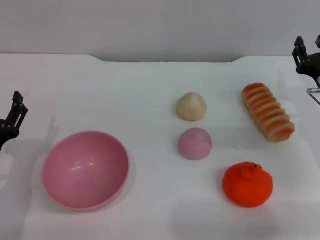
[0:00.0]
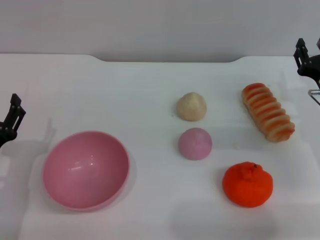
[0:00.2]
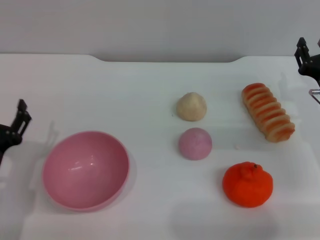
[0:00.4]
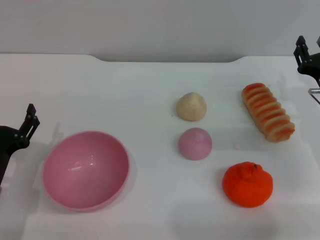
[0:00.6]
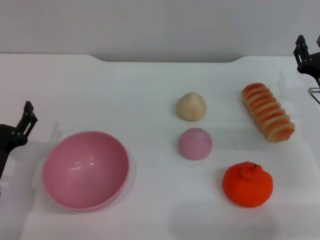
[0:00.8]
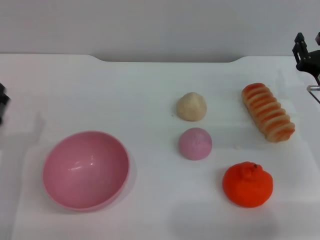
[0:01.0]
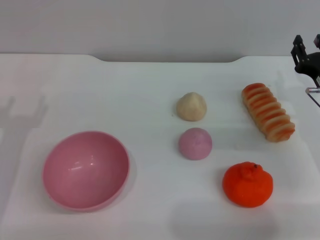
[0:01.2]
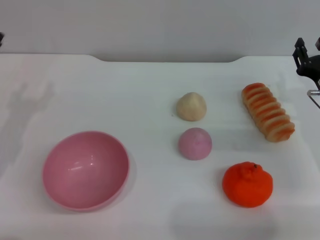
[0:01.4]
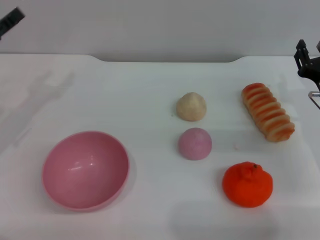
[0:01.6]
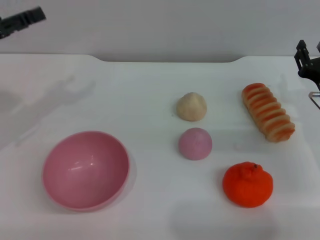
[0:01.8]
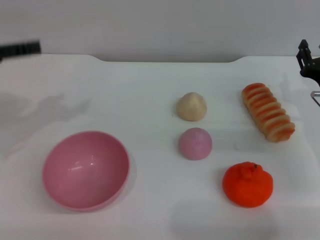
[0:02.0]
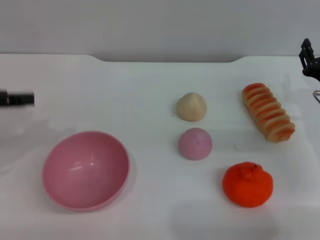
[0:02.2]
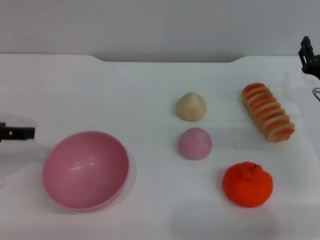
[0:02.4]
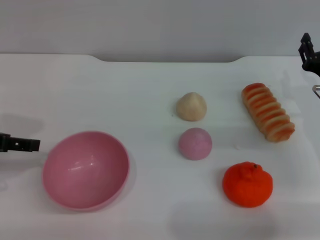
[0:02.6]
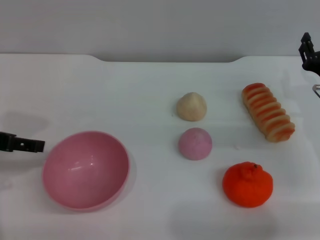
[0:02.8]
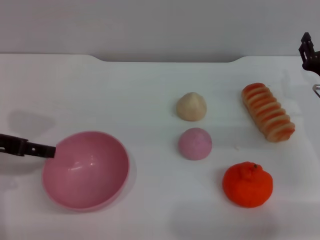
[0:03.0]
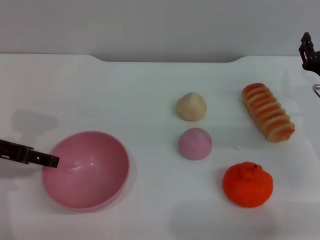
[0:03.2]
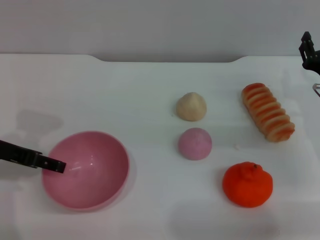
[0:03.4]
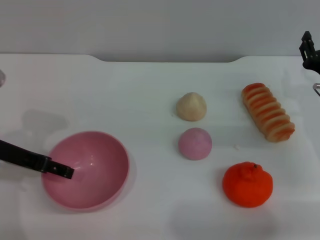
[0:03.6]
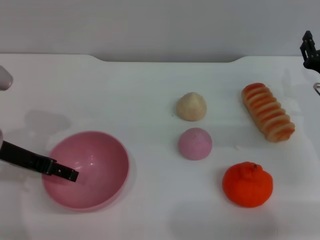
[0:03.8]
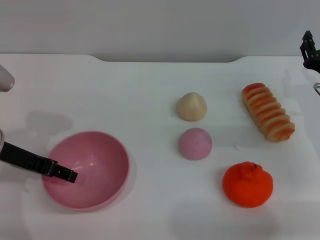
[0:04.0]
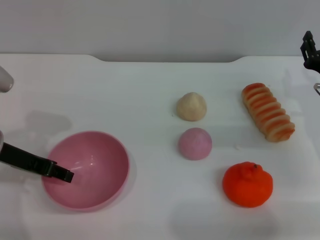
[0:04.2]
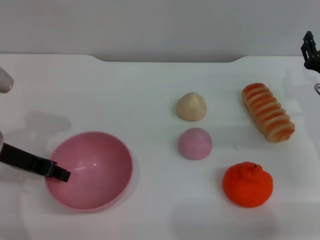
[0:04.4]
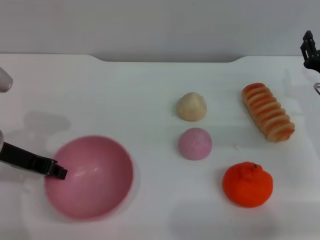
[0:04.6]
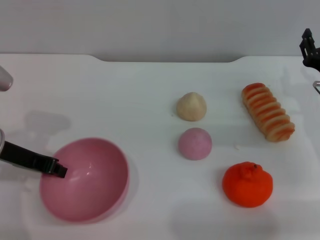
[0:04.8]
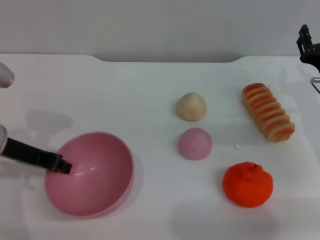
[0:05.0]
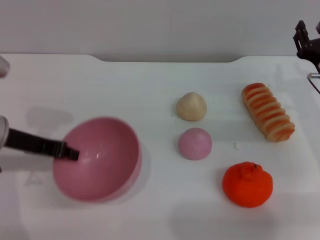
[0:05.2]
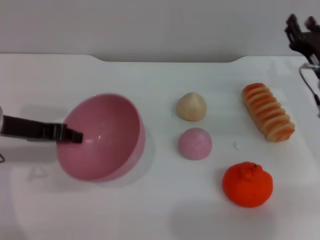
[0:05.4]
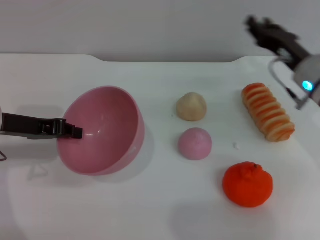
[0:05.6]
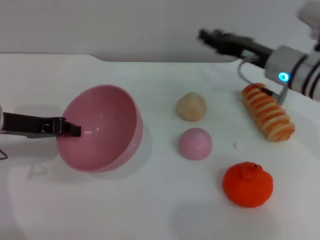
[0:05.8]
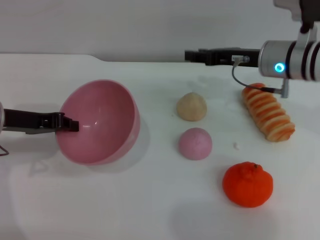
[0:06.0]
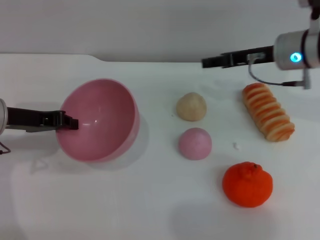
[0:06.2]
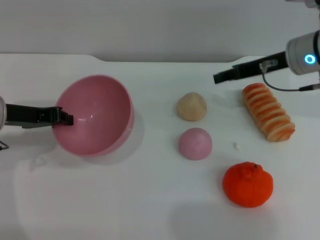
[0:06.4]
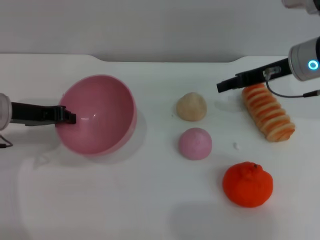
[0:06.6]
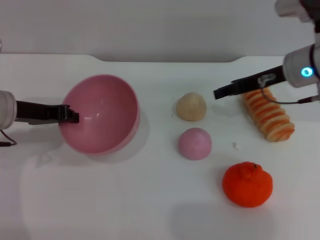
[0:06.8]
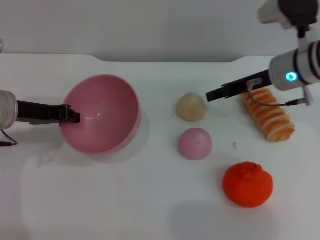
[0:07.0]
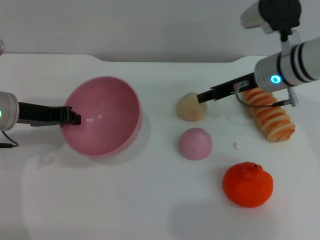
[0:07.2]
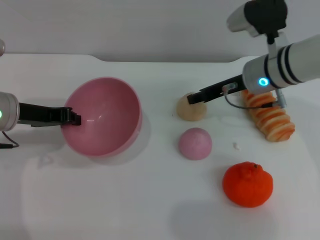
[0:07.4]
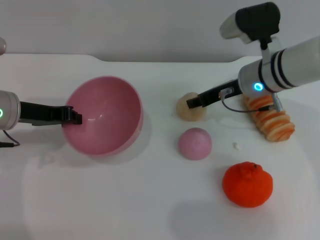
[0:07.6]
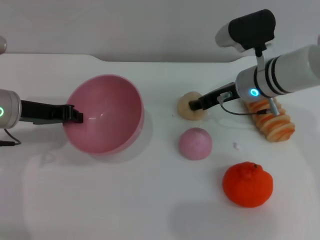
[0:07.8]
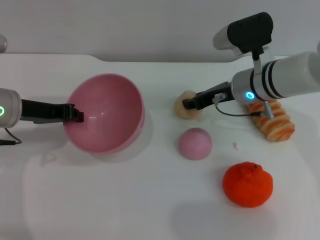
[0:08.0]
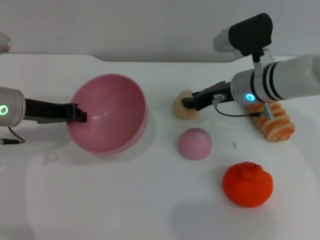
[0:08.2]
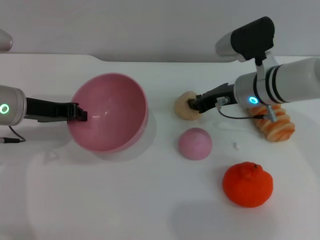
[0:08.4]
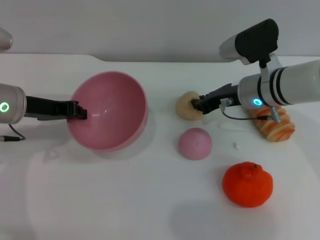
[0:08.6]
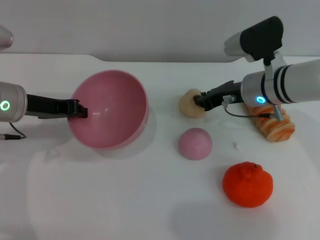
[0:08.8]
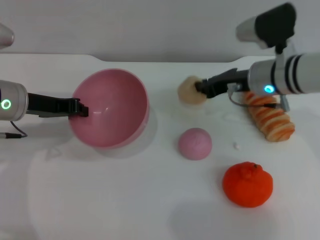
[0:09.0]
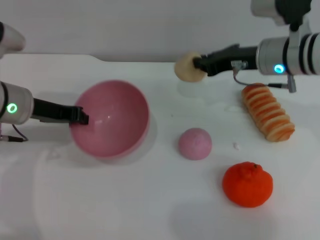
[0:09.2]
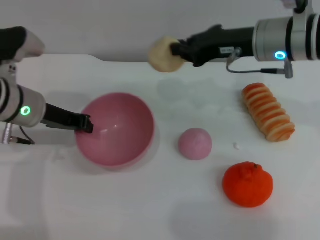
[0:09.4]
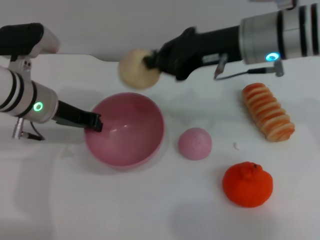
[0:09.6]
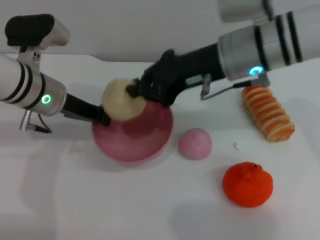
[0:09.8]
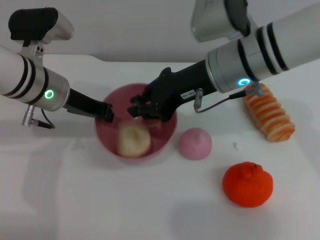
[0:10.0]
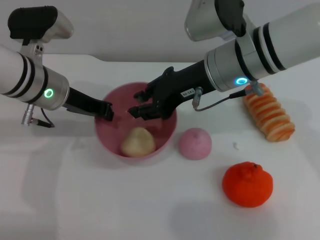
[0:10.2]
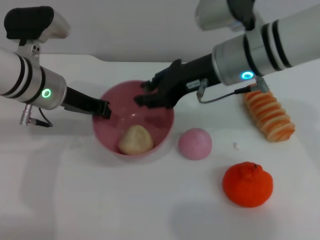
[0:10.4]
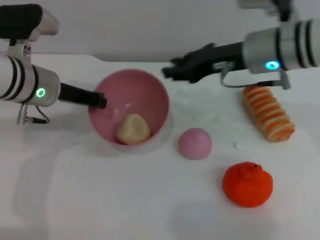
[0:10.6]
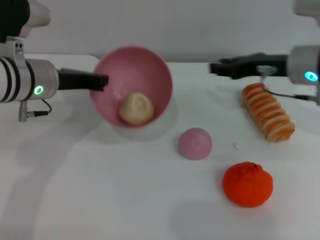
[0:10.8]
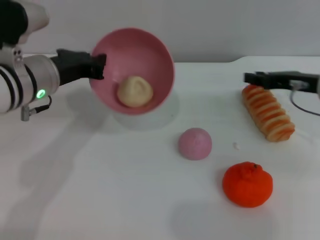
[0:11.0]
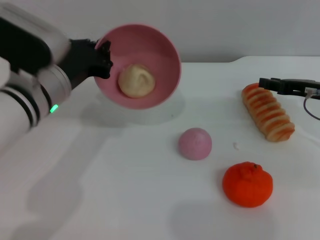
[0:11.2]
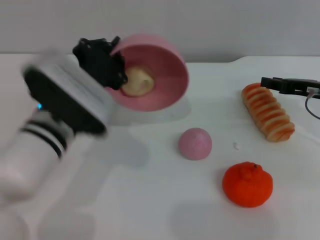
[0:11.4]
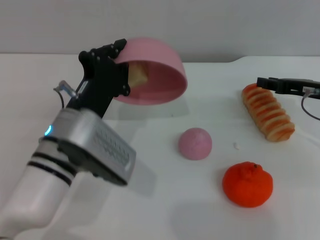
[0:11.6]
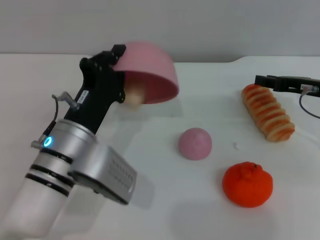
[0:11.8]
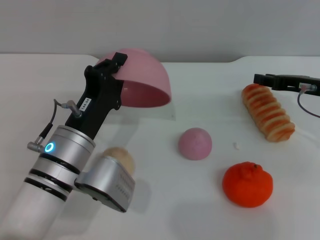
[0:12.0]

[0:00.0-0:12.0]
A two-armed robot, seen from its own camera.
Task of the whole recording: put the egg yolk pastry into the pink bowl and pour it out repeatedly.
Step, 0:00.0 to 0:05.4: Pick up the bowl with the left gripper.
Step, 0:05.6 to 0:09.0: Pick up the egg yolk pastry with the right gripper.
Step, 0:09.4 to 0:10.8: Place the egg yolk pastry into the bowl.
0:00.0 to 0:01.6: The left gripper is displaced forward, upward and to the left by roughly 20 cm.
0:01.6 to 0:03.0: The left gripper heads backward, covering approximately 5 cm.
0:03.0 to 0:04.4: The left gripper shifts by roughly 5 cm, and closes.
0:04.4 to 0:06.0: The right gripper shifts approximately 15 cm to the left, forward and upward; the left gripper closes its fingers.
0:07.6 to 0:09.0: The right gripper closes up.
0:09.0 to 0:10.4: The left gripper travels to the right by some 5 cm; the right gripper goes about 10 cm upward and to the left, and opens its fingers.
0:10.4 to 0:12.0: The right gripper shifts some 20 cm to the right and downward. Meanwhile the left gripper goes roughly 15 cm backward, downward and to the right.

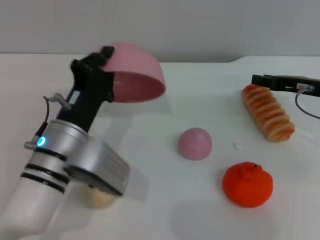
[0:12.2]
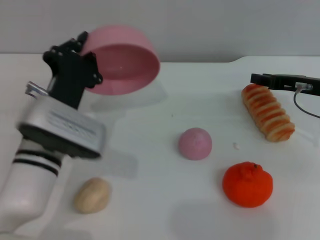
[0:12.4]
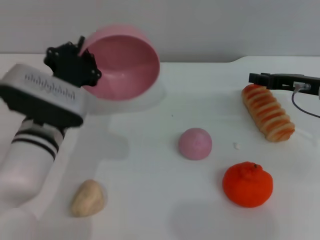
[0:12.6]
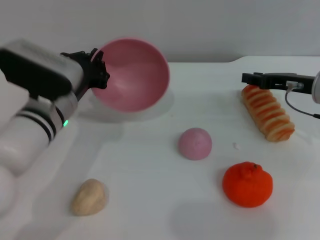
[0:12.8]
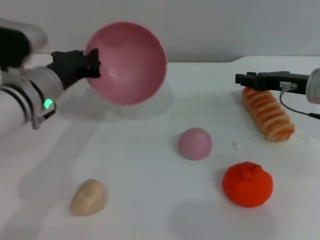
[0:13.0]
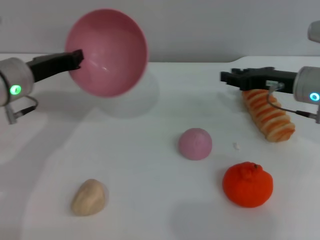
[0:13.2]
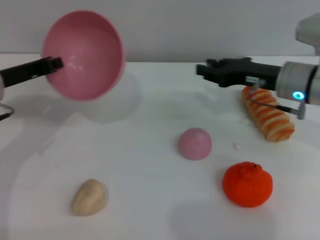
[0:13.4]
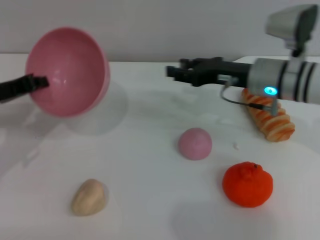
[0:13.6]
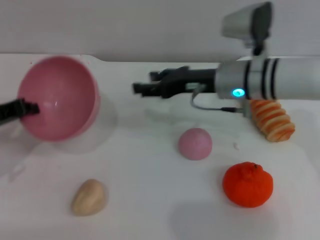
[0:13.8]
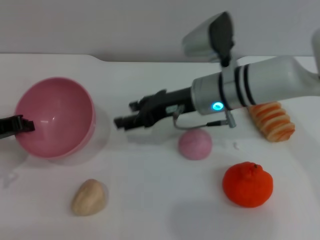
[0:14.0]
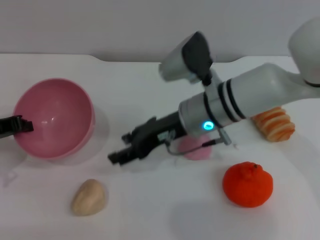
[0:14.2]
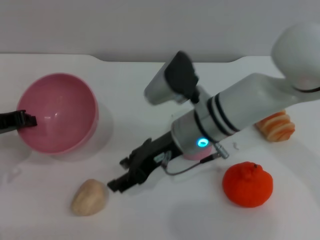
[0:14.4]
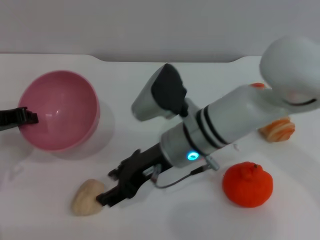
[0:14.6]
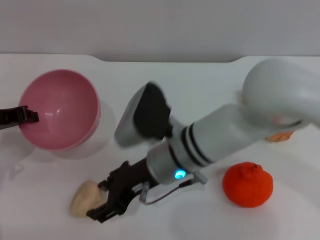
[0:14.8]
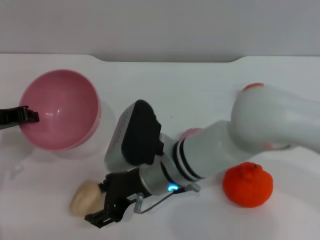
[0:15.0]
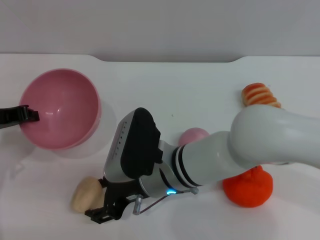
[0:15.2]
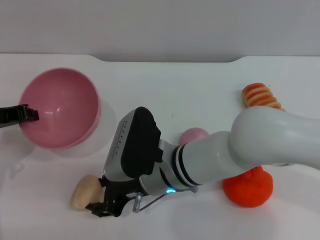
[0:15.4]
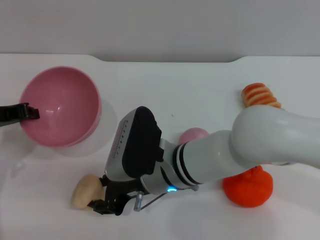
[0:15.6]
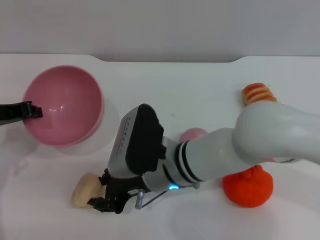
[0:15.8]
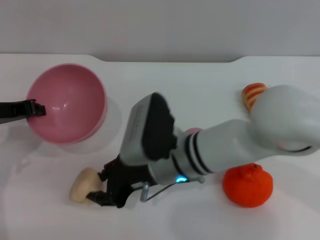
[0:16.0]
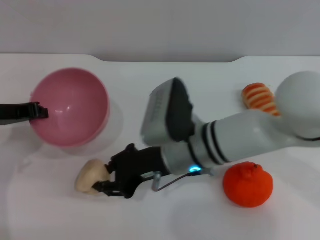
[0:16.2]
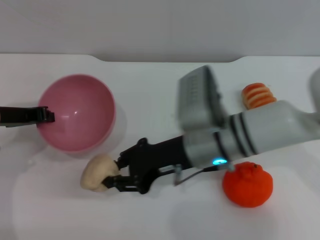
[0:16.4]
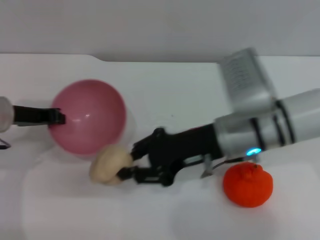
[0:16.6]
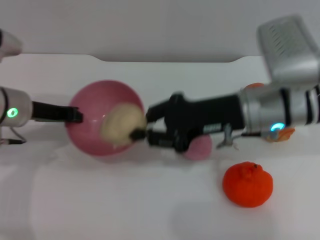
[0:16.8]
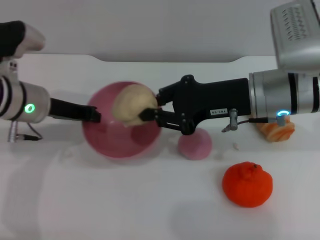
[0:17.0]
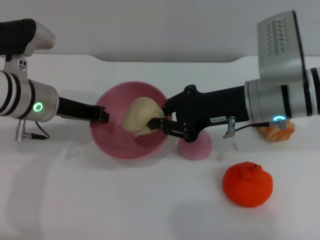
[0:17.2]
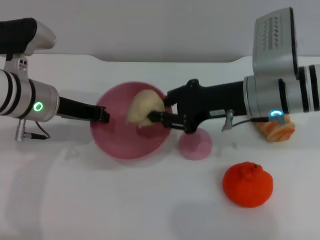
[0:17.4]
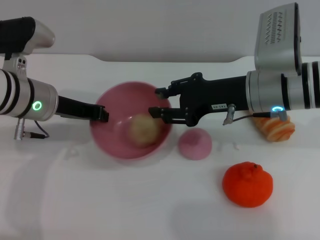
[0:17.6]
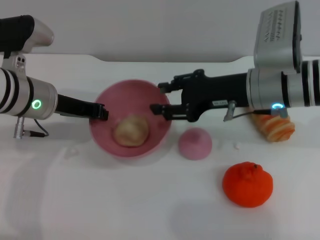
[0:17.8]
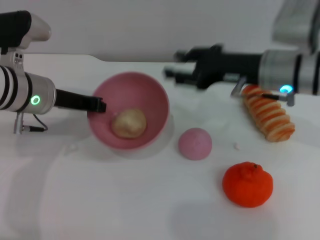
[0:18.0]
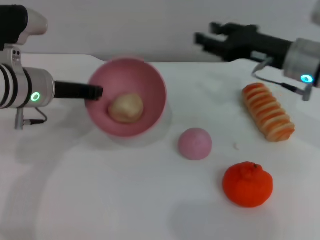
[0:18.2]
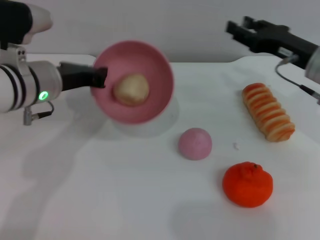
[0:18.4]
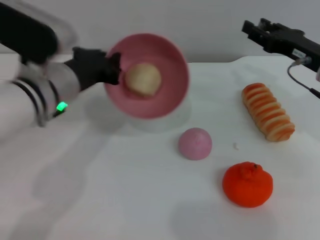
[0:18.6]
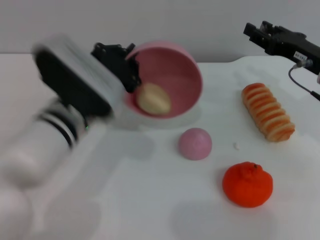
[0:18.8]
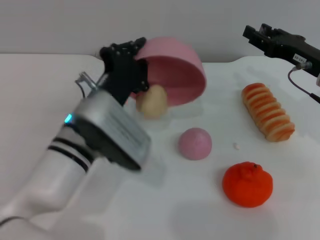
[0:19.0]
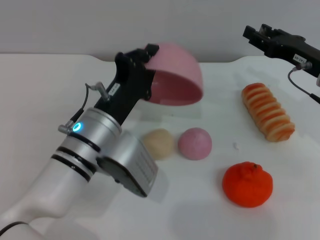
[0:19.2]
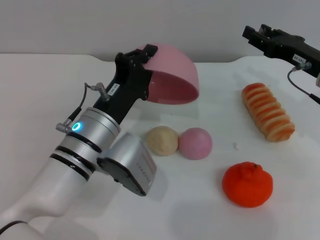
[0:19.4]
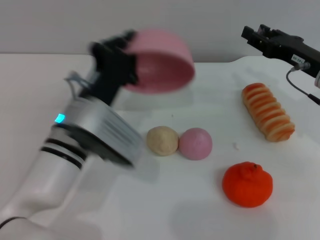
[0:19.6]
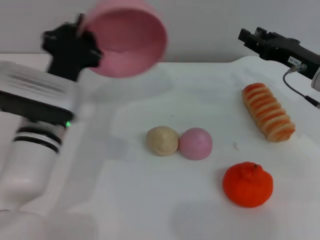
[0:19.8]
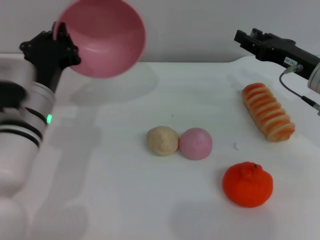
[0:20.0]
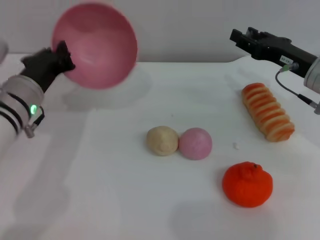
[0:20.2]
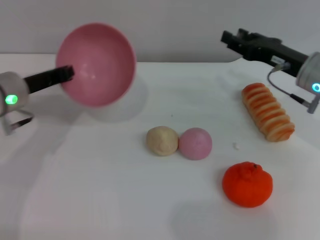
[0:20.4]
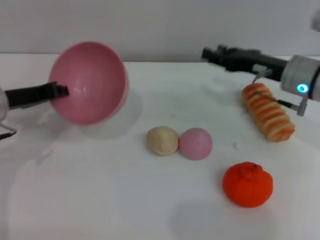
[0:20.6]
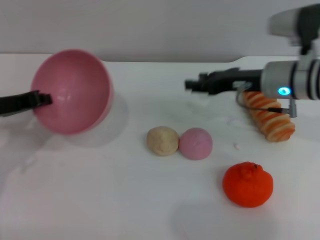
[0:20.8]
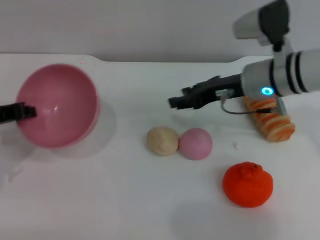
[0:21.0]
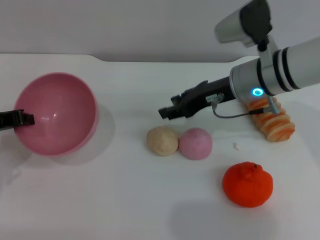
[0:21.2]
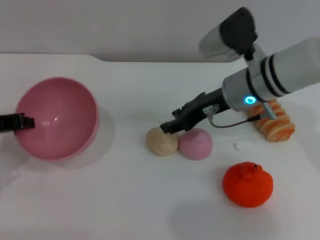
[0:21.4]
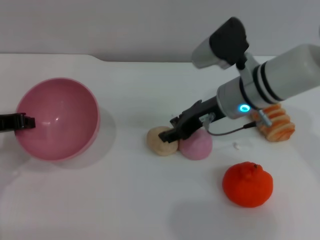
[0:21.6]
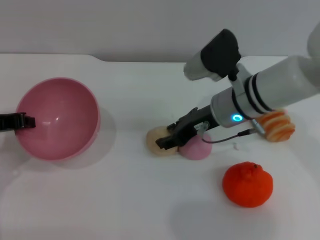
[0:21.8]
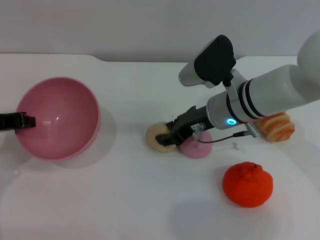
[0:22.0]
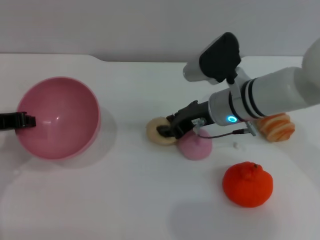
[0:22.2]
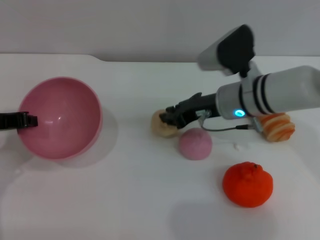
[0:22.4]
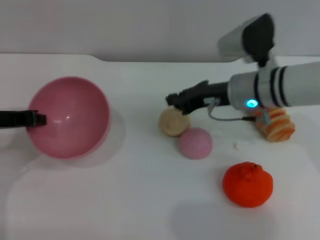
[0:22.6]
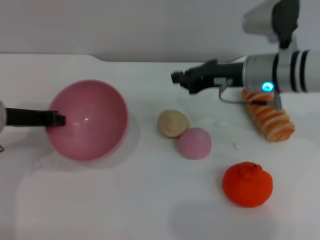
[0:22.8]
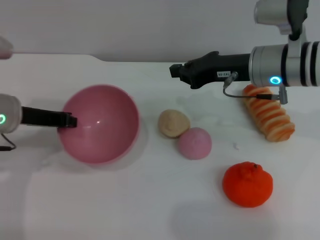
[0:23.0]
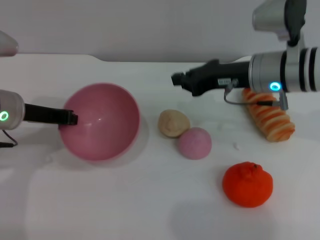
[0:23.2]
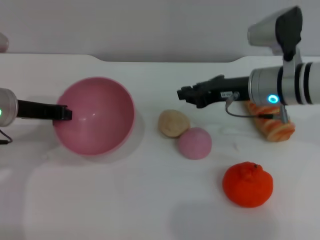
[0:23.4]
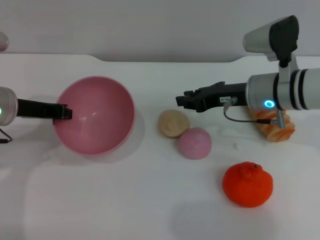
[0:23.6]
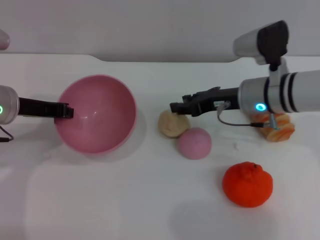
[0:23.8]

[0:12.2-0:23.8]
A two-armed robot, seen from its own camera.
Task of the whole recording: put the egg yolk pastry into the pink bowl and pour it out repeatedly.
Step, 0:12.4 to 0:16.4: Pick up the egg yolk pastry with the right gripper.
Step, 0:16.6 to 0:17.8: Place the egg yolk pastry into the bowl.
Step, 0:18.0 to 0:19.2: Pour the egg yolk pastry out of bowl.
0:12.2 to 0:13.6: The left gripper travels to the left, upward and forward by roughly 20 cm. The right gripper heads to the left, covering some 10 cm.
0:13.6 to 0:15.0: The right gripper is displaced to the left and backward by approximately 20 cm, and opens its fingers.
0:15.0 to 0:16.6: The right gripper is displaced to the right by roughly 10 cm, and closes its fingers.
0:16.6 to 0:18.0: The right gripper heads to the right and forward, covering some 10 cm. Meanwhile the left gripper goes approximately 5 cm to the right.
0:18.0 to 0:19.4: The right gripper moves to the right, roughly 10 cm. The left gripper goes about 15 cm to the right, backward and downward.
0:19.4 to 0:21.0: The left gripper is displaced to the left by roughly 20 cm. The right gripper heads to the left, covering about 10 cm.
0:22.4 to 0:23.8: The right gripper closes and opens again; the left gripper is displaced to the right by about 5 cm.
